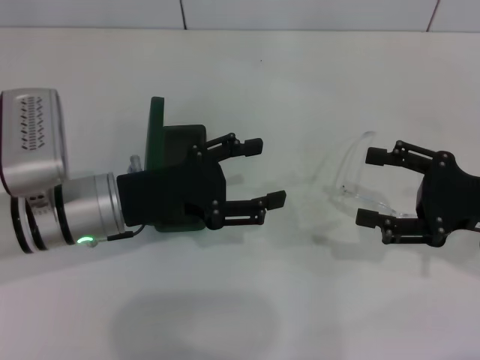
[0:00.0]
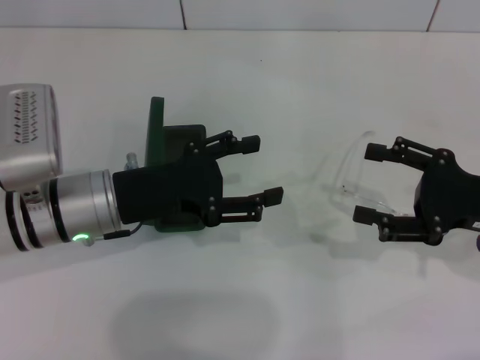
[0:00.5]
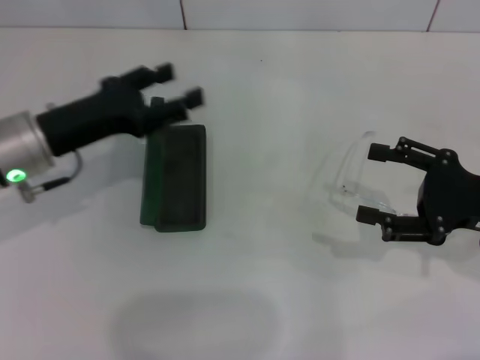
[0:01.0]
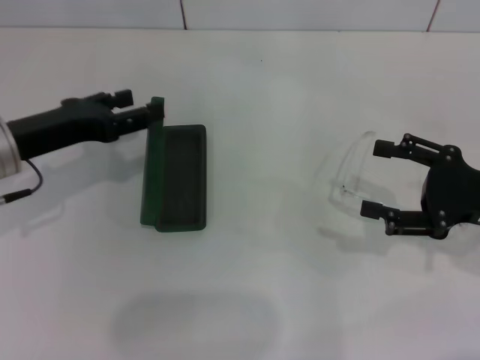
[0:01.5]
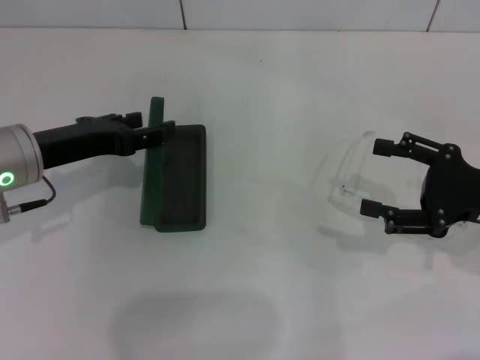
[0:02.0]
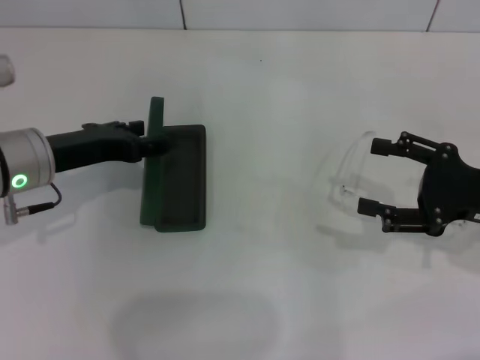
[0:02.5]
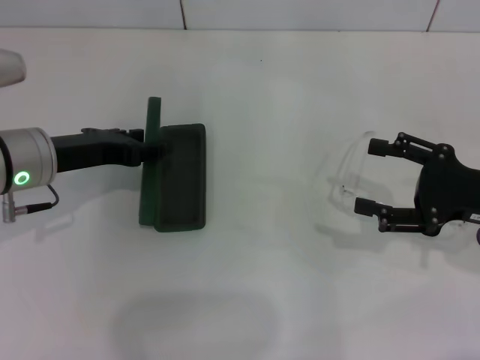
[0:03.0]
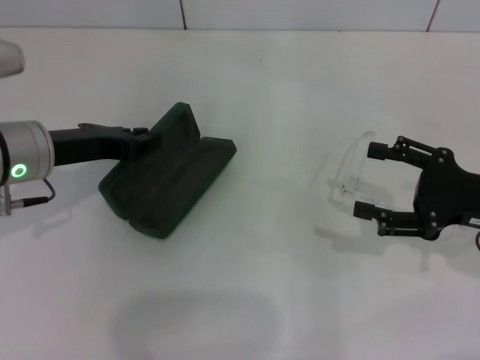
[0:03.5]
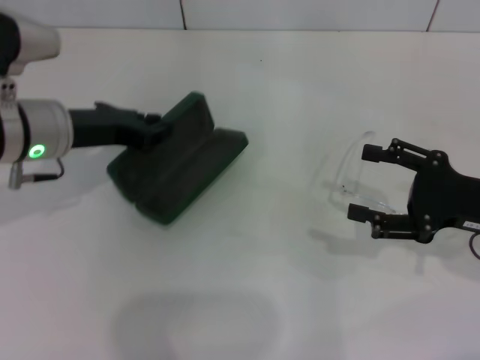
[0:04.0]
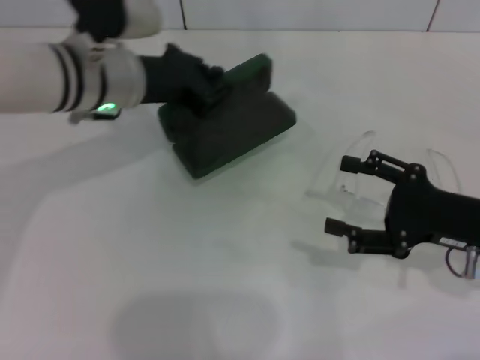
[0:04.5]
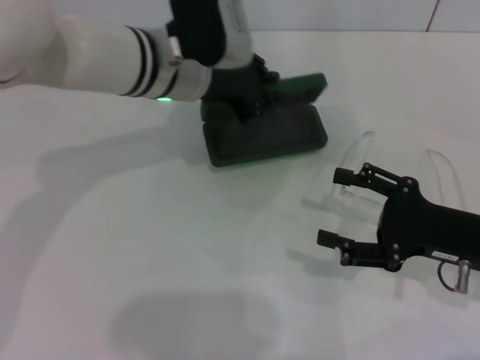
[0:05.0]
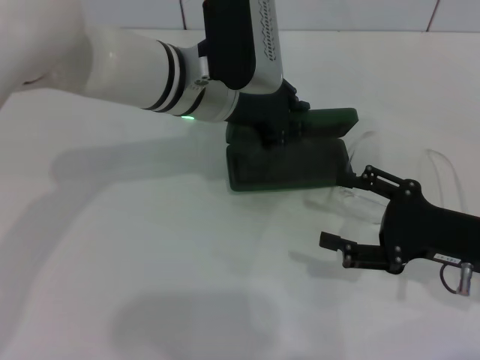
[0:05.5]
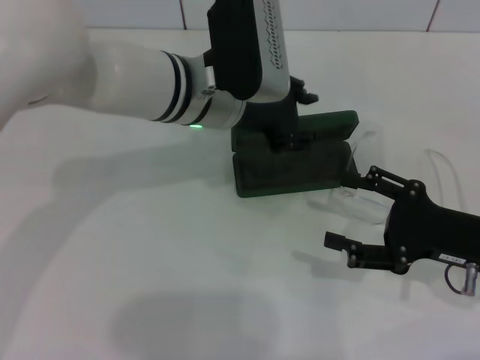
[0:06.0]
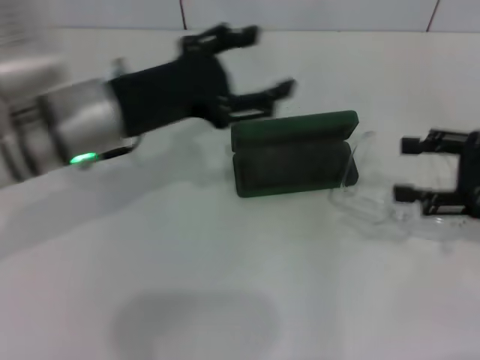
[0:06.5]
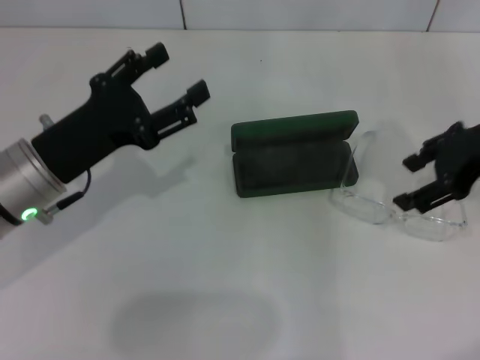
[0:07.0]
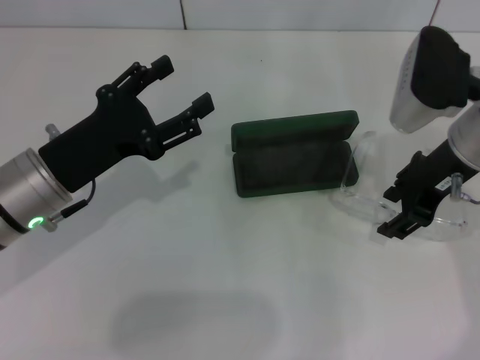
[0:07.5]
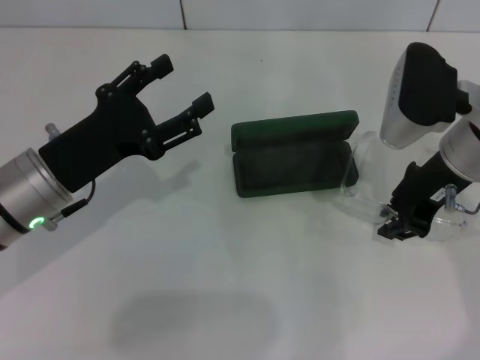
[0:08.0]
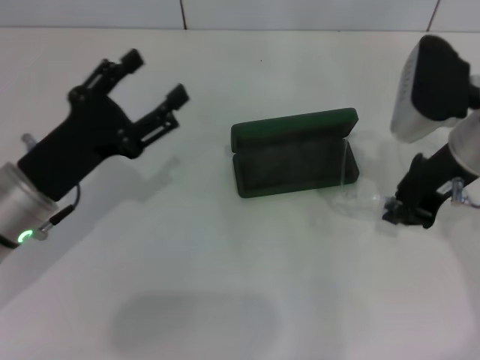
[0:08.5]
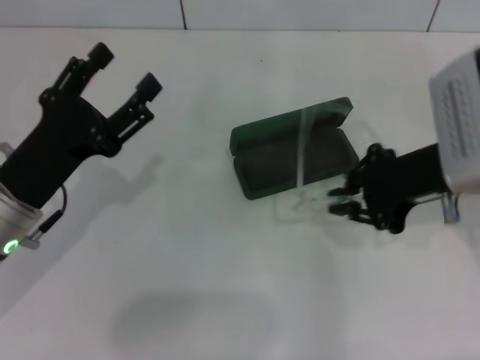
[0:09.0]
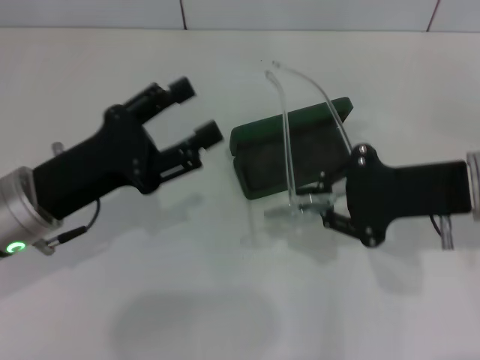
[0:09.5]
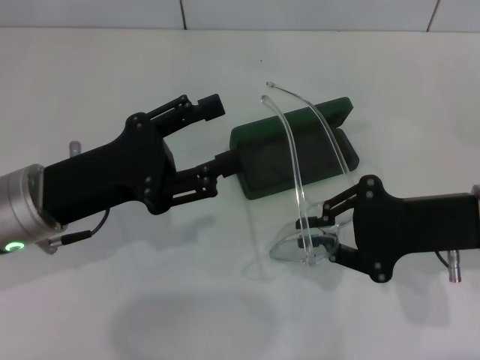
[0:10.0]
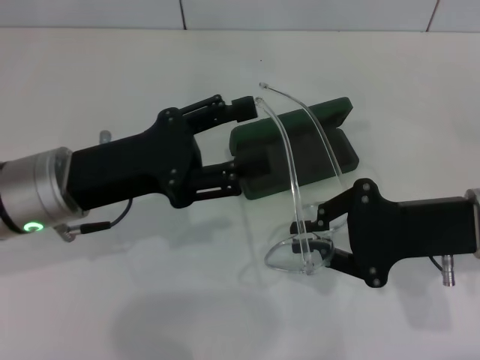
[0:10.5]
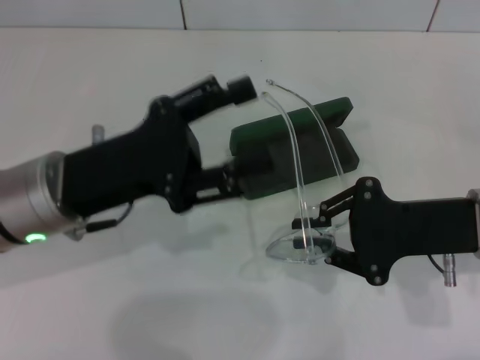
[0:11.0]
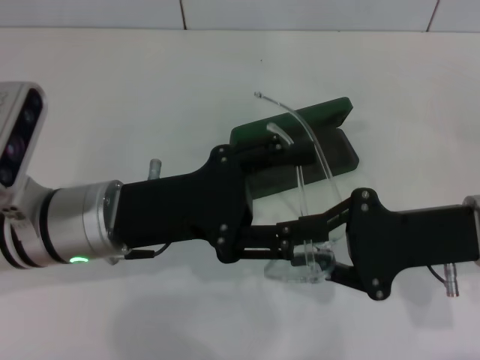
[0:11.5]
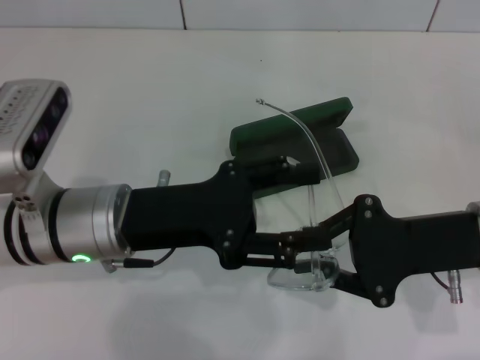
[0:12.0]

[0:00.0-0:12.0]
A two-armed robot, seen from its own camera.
Step, 0:00.0 to 0:03.5: Grab the glasses case with your left hand.
Step, 0:04.0 to 0:06.0: Place the glasses case in the center of the table with your left hand.
Step, 0:06.5 to 0:08.0: Grab the eyeglass frame with your right hand.
0:00.0 to 0:02.0: The left gripper is displaced to the left by roughly 5 cm.
0:02.0 to 0:04.0: The left gripper closes.
0:04.0 to 0:06.0: The left gripper shifts about 15 cm to the right.
0:06.0 to 0:08.0: The right gripper shifts about 15 cm forward, upward and to the left, and closes, while the left gripper shifts roughly 20 cm to the left and backward, and opens.
0:08.0 to 0:10.0: The right gripper travels backward by about 10 cm, and closes its fingers.
0:10.0 to 0:12.0: The left gripper moves to the right, about 5 cm.

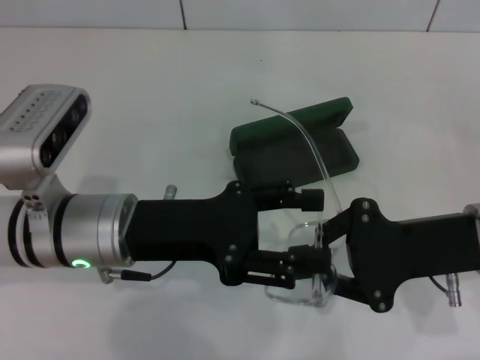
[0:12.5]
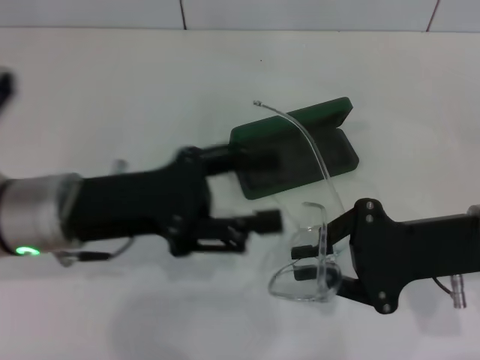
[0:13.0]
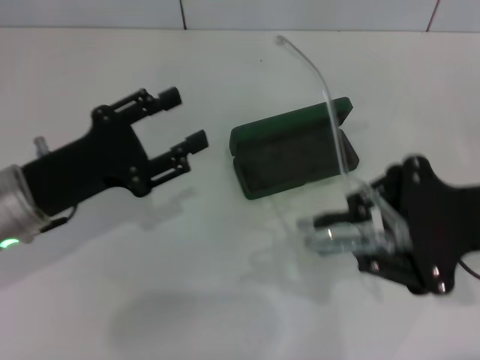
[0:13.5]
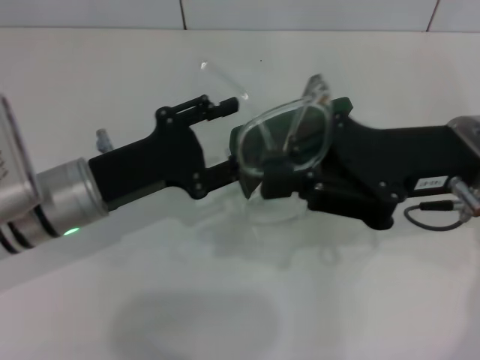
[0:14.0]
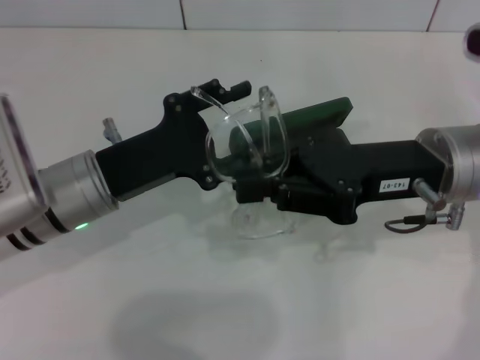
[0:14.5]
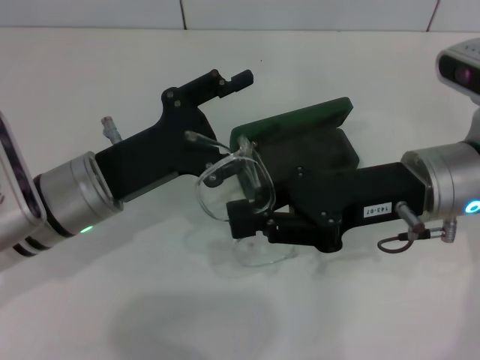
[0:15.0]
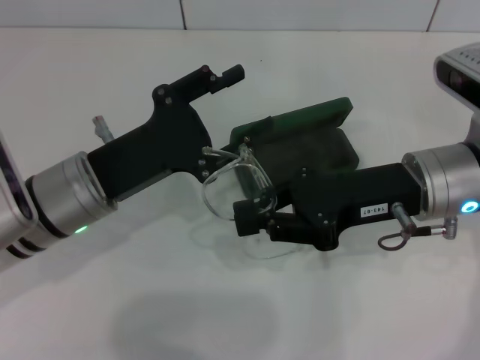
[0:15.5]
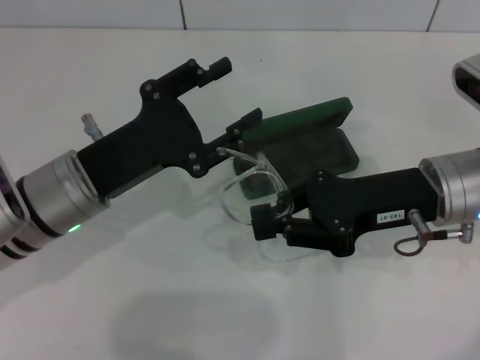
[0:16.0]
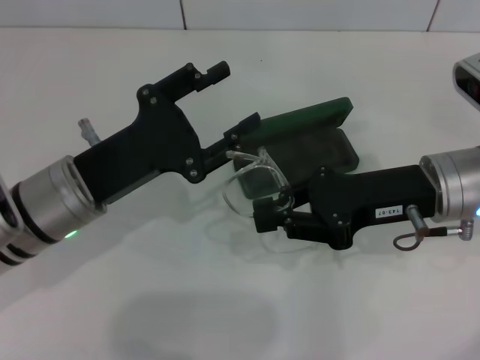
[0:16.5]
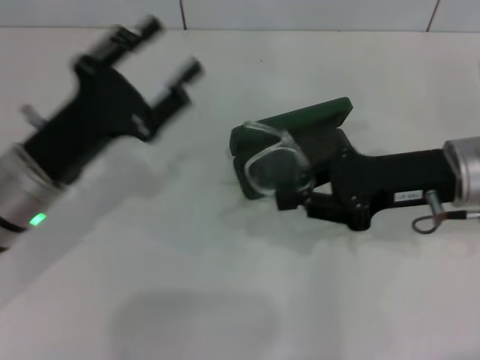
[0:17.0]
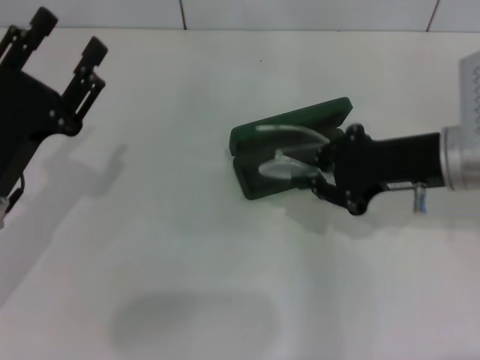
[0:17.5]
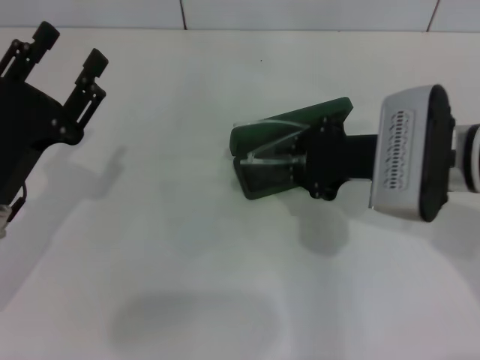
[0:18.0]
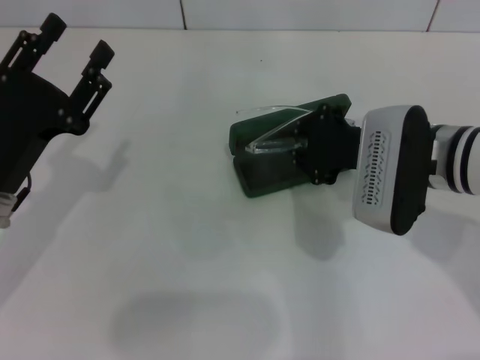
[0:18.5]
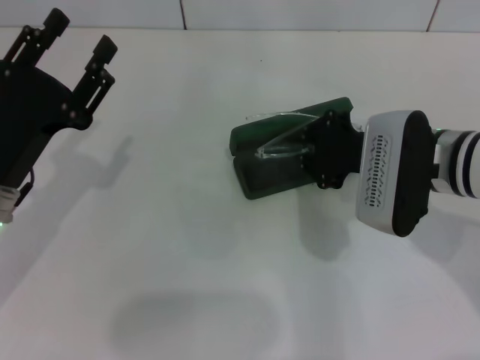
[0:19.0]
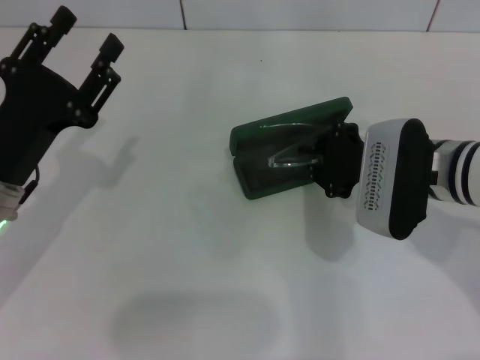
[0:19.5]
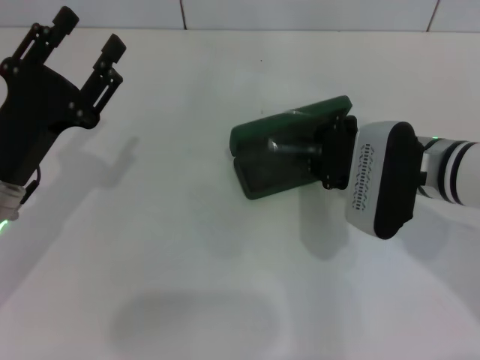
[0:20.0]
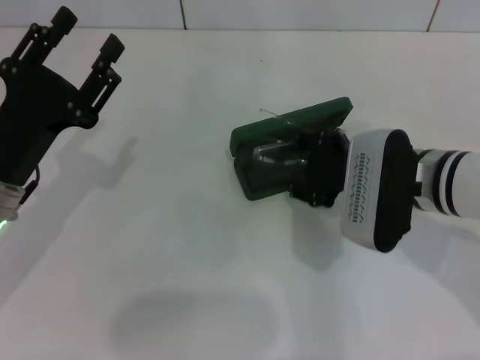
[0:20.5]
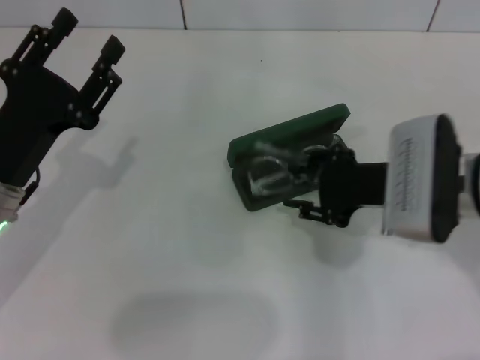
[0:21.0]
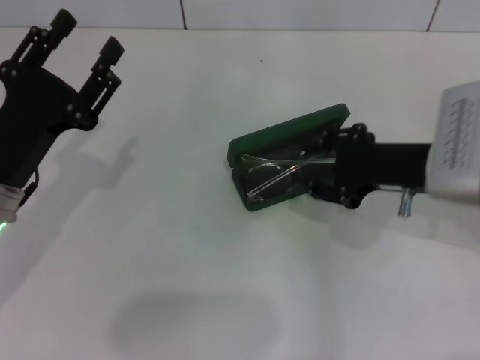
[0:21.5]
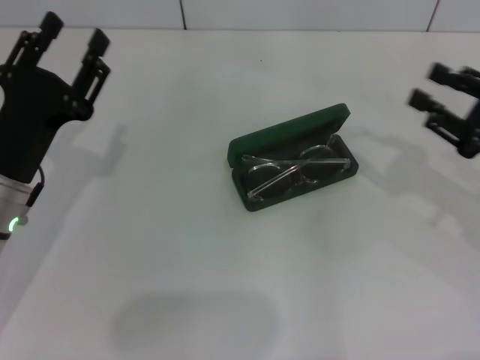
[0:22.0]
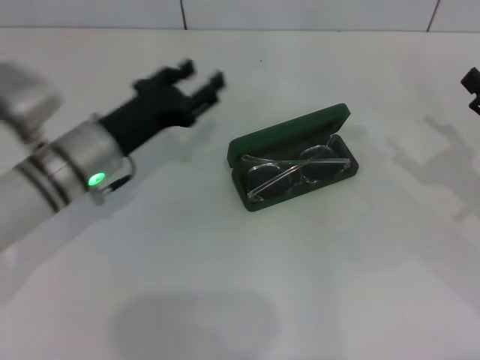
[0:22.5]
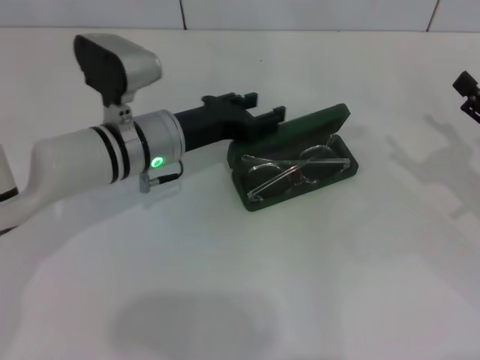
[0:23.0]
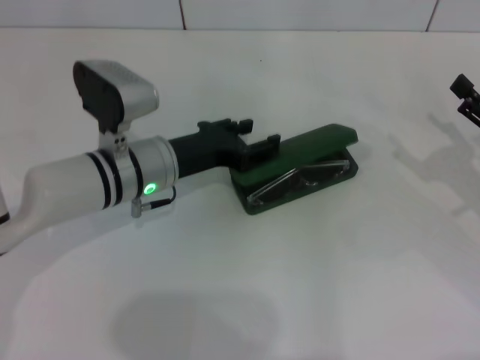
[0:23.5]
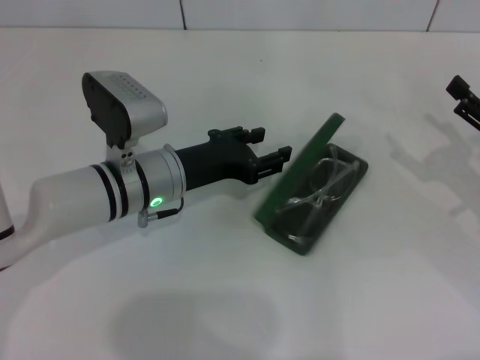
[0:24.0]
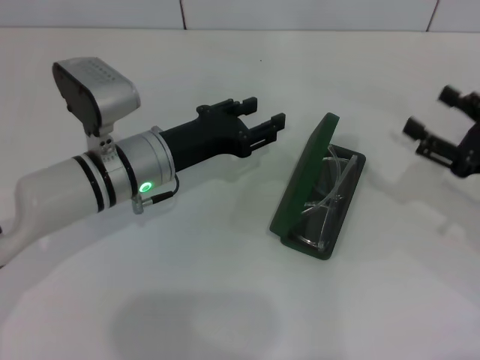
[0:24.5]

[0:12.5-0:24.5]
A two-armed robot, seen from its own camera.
Step, 0:12.5 to 0:16.5: Fold the frame with your left hand.
Step, 0:17.0 to 0:21.0: Put the glasses into the case with your right hand.
0:12.5 to 0:14.5: The right gripper shifts by some 5 cm. The left gripper travels to the left and back again, roughly 10 cm each way.
0:14.5 to 0:16.5: There are only small adjustments of the grippers.
0:16.5 to 0:18.5: The left gripper is displaced to the left by approximately 5 cm.
0:18.5 to 0:20.5: The right gripper opens up.
0:20.5 to 0:22.5: The left gripper shifts roughly 10 cm forward and to the right, while the right gripper goes roughly 20 cm to the right, and opens up.

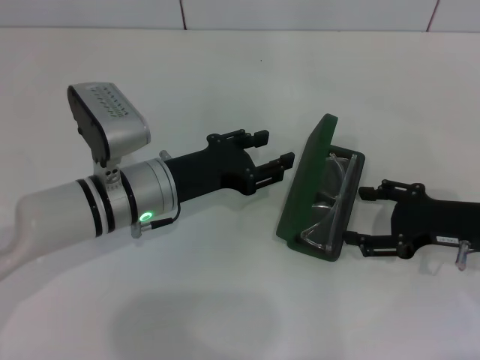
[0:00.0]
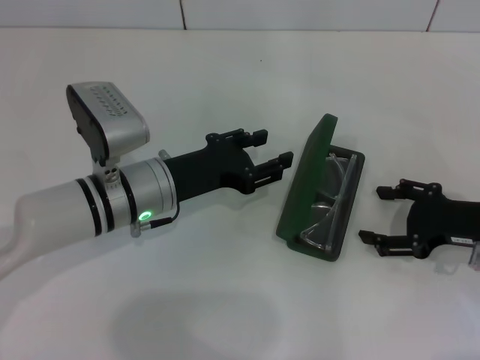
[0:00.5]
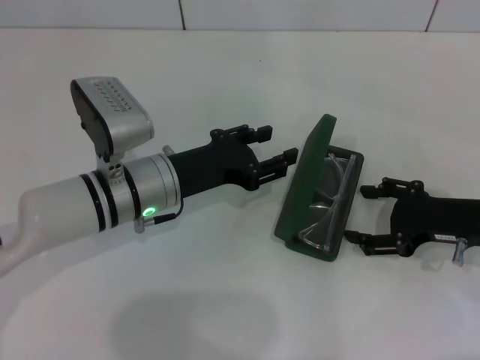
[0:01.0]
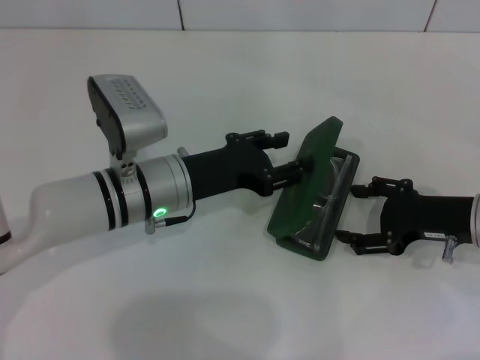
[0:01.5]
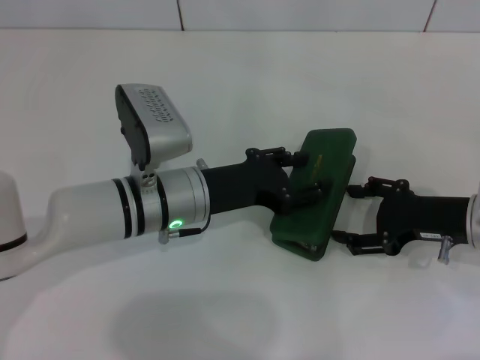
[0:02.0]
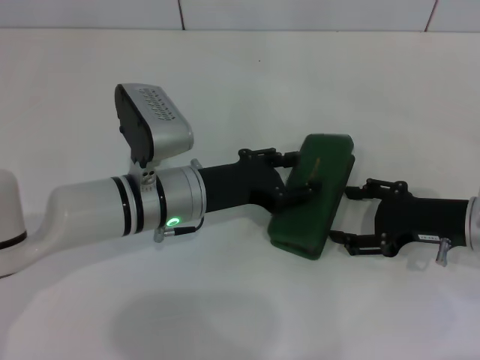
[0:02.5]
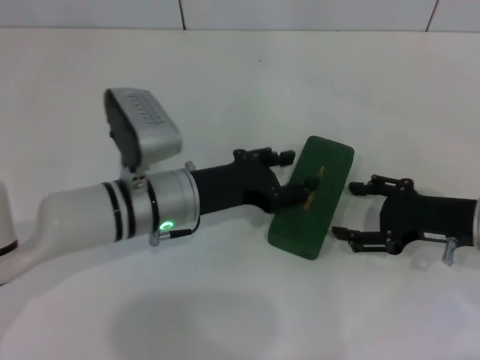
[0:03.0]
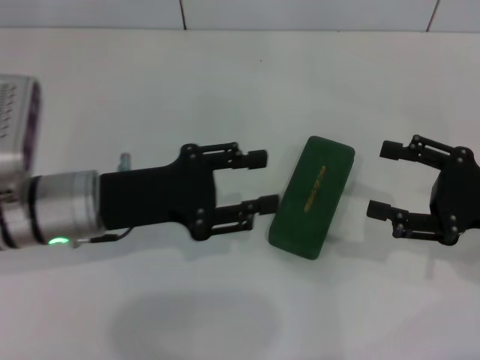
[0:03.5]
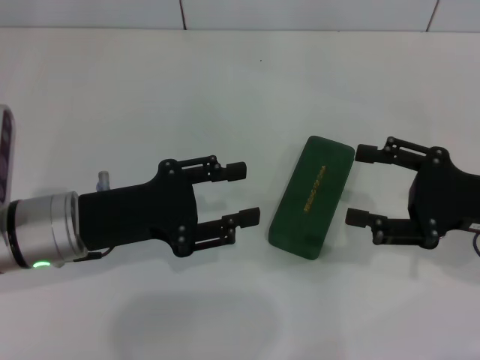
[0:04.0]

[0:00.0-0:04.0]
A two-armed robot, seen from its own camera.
Step, 0:00.0 to 0:02.5: Close the glasses case with your left hand.
0:00.0 to 0:02.0: The grippers make only small movements.
0:02.0 to 0:04.0: The left gripper moves to the left, approximately 10 cm. The right gripper travels upward by some 5 cm.
